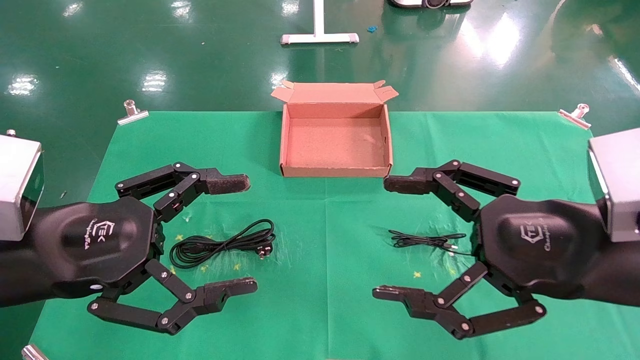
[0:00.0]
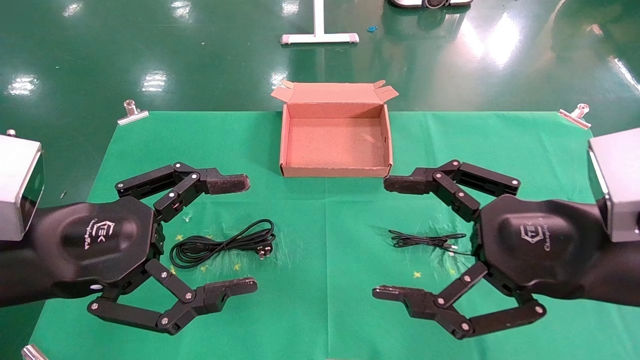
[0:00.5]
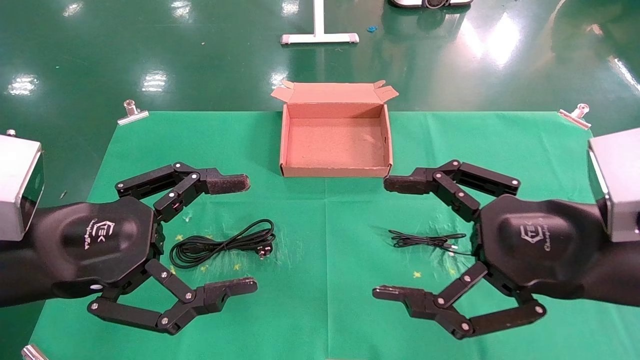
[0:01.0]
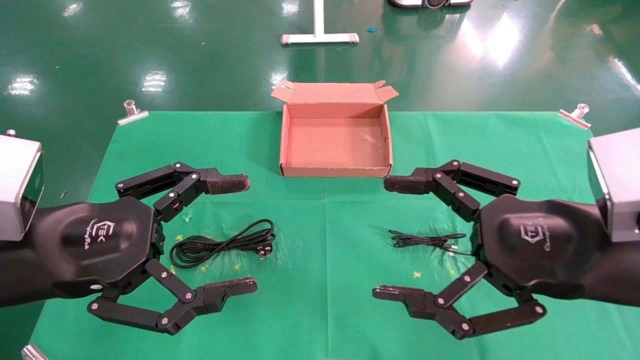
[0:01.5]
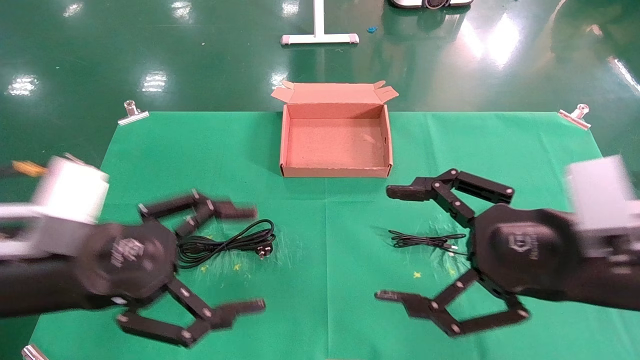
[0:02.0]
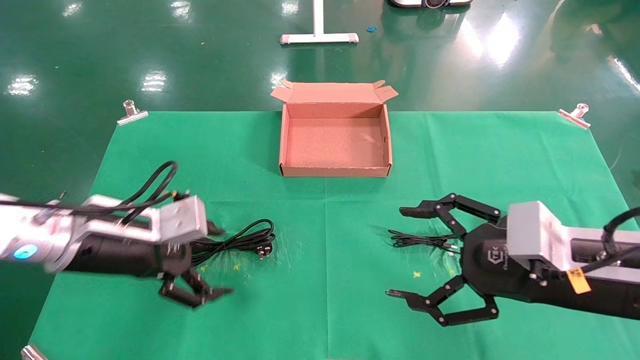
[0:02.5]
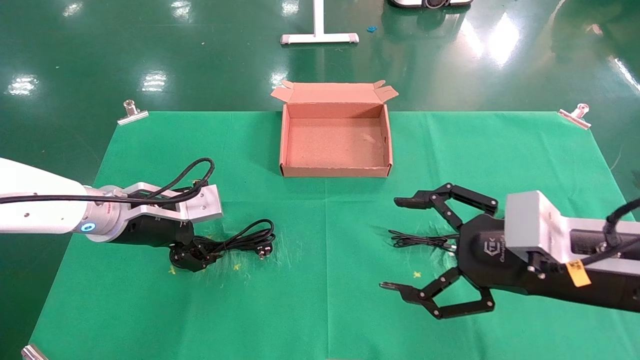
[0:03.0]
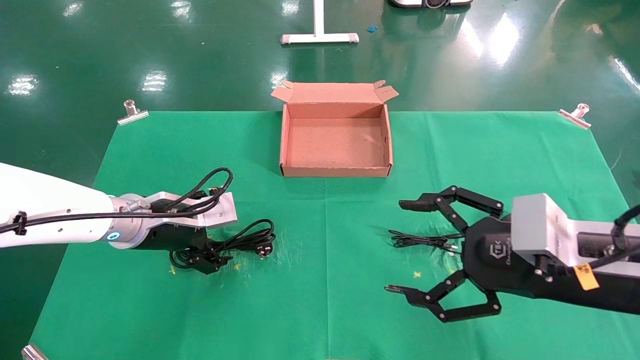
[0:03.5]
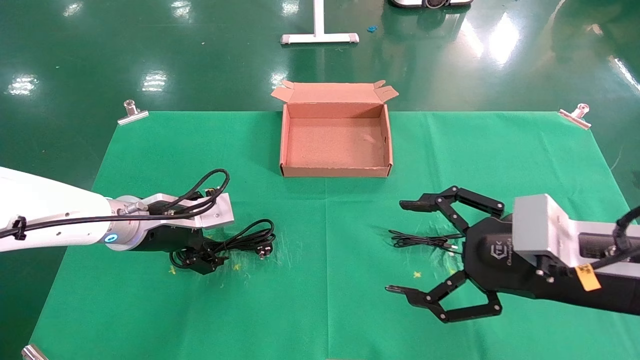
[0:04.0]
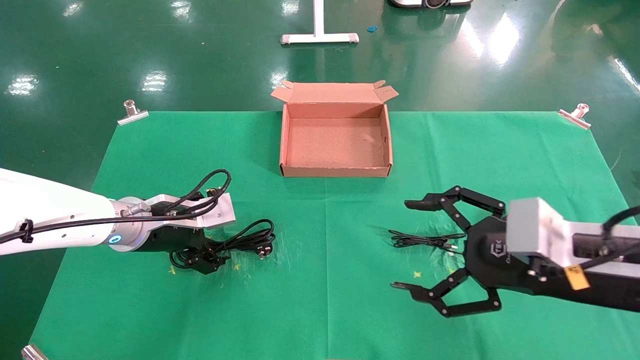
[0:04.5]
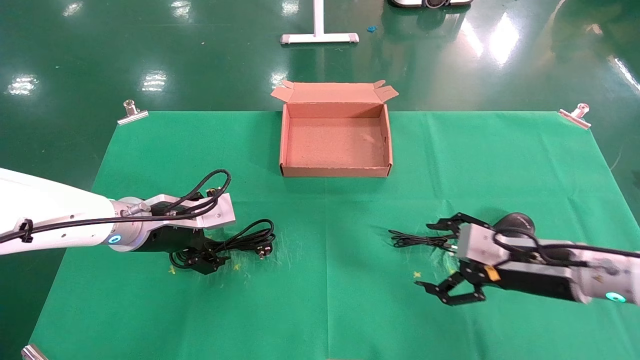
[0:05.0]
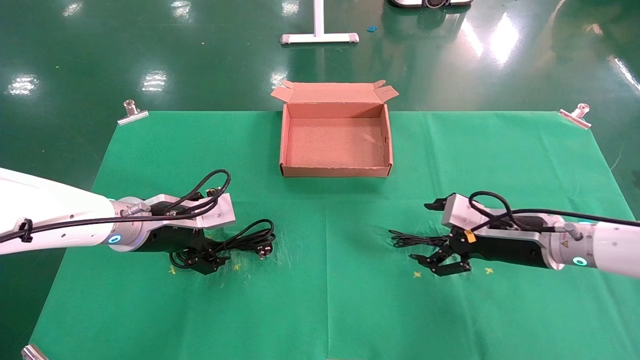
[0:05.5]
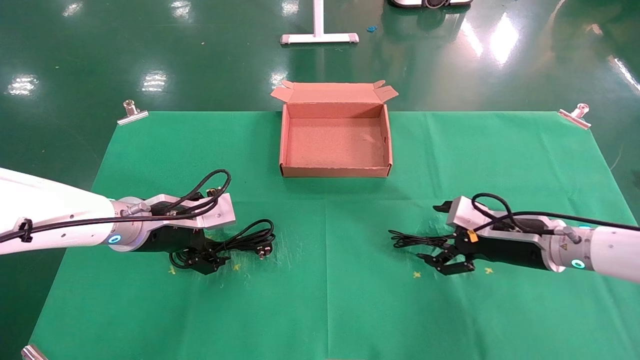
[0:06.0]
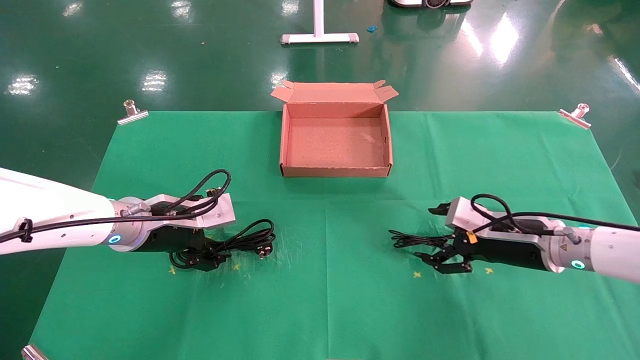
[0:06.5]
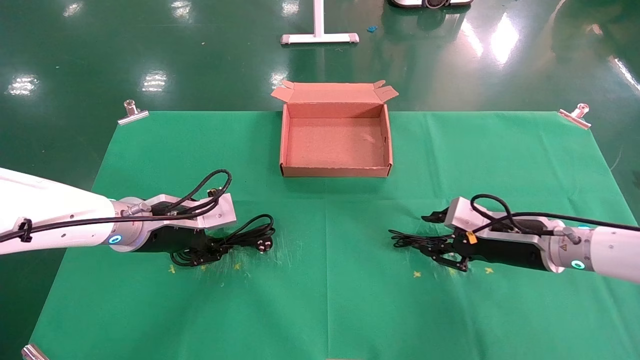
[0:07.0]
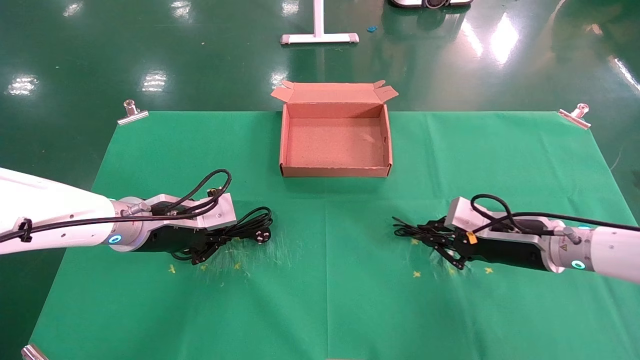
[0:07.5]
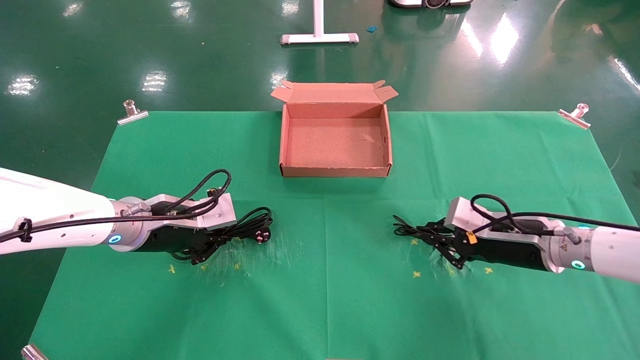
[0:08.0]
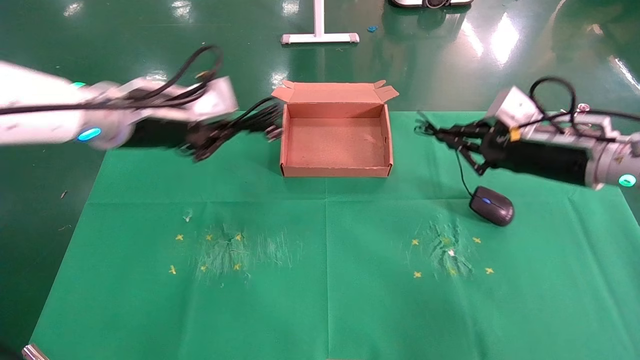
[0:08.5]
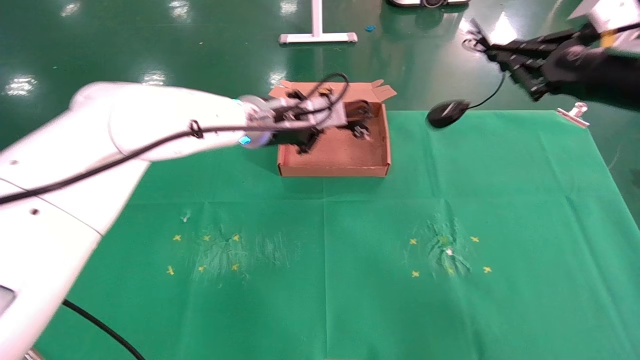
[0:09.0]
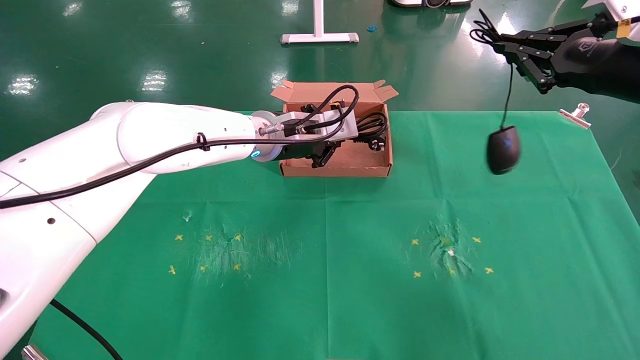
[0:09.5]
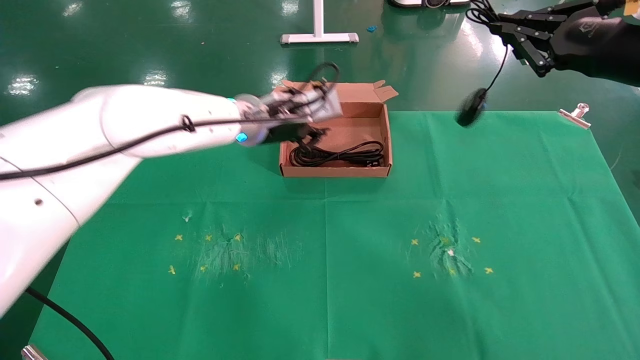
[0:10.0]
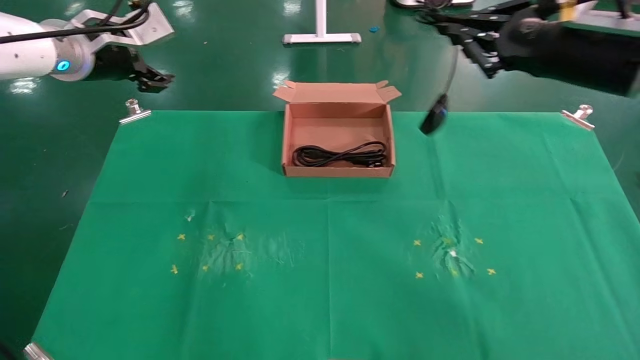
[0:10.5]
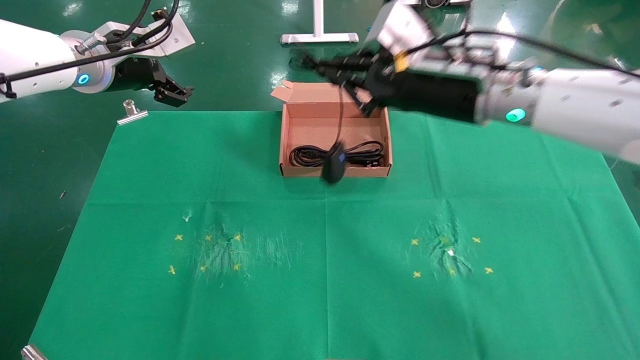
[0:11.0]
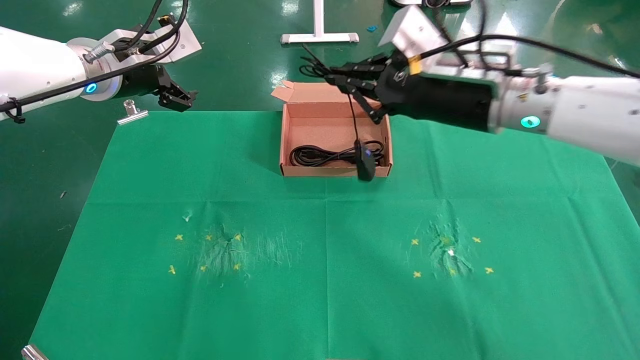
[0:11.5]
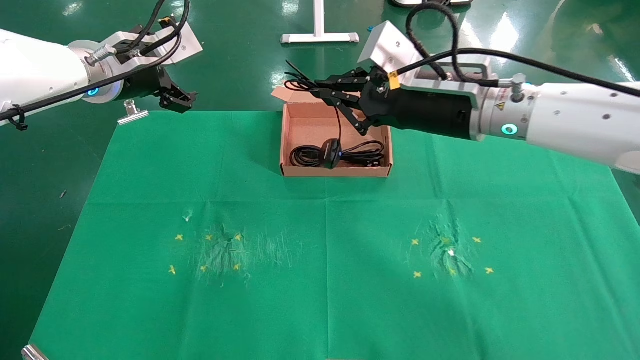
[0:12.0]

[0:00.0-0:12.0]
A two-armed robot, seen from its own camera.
Task of the whole recording: grasp data cable left put into box grasp mouse right put into box.
Step, 0:02.0 to 0:07.5: Simultaneously pick up the mouse and power cord from the accessory packaging area.
0:02.0 to 0:04.0: The left gripper is displaced forward by roughly 15 cm.
0:04.0 to 0:06.0: The right gripper goes about 15 cm forward and downward.
0:06.0 to 0:08.0: The left gripper closes, while the right gripper closes up.
0:08.0 to 0:10.0: The right gripper shifts some 20 cm upward. The left gripper travels to the right, forward and upward by roughly 20 cm.
0:10.0 to 0:12.0: The left gripper moves to the left and upward, approximately 15 cm, and opens its fingers; the right gripper heads to the left, covering some 20 cm.

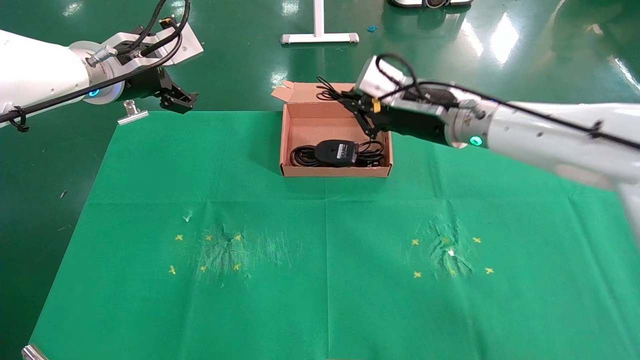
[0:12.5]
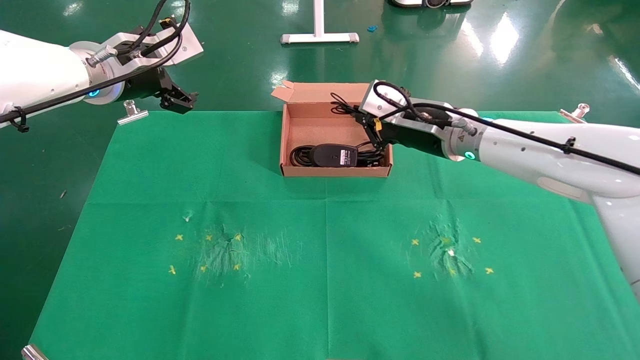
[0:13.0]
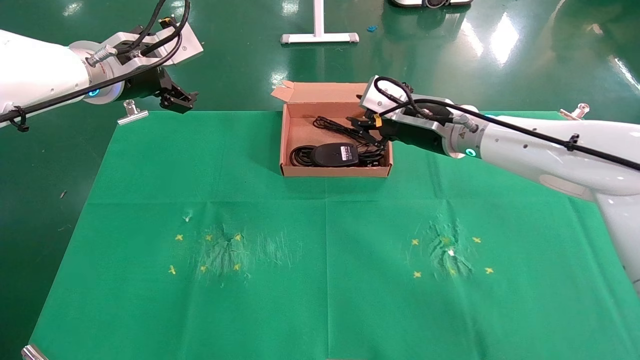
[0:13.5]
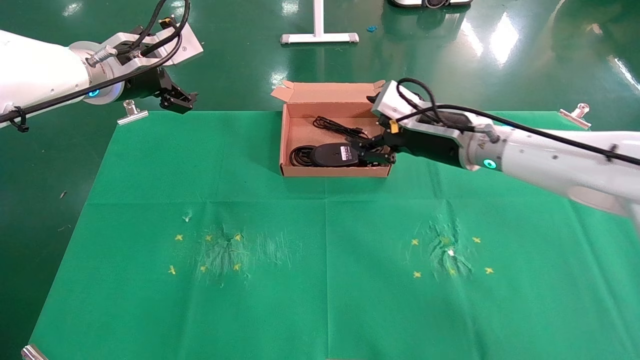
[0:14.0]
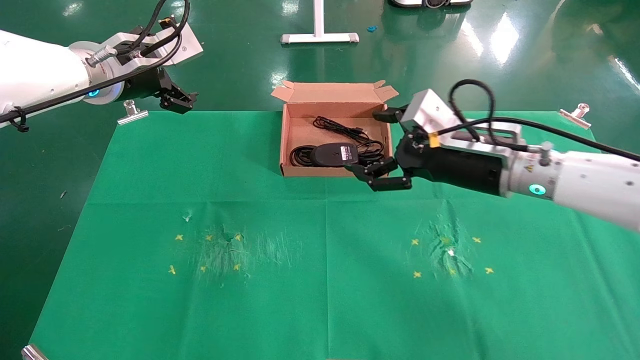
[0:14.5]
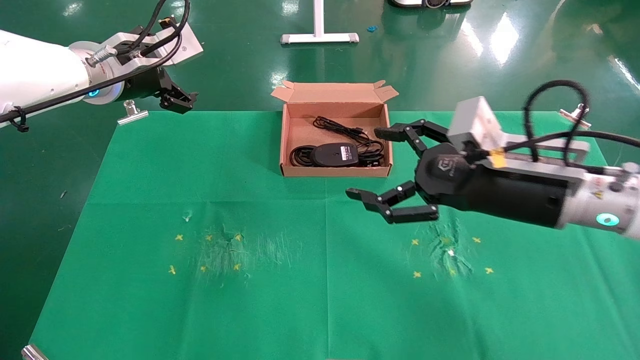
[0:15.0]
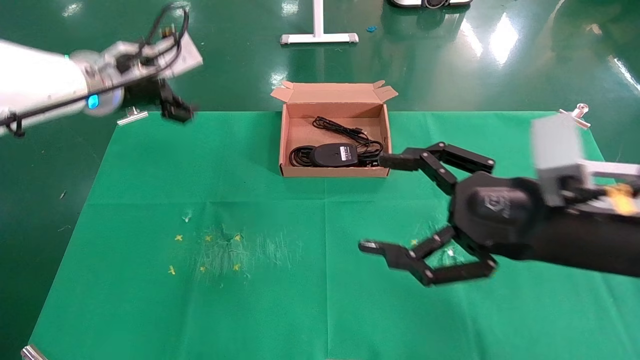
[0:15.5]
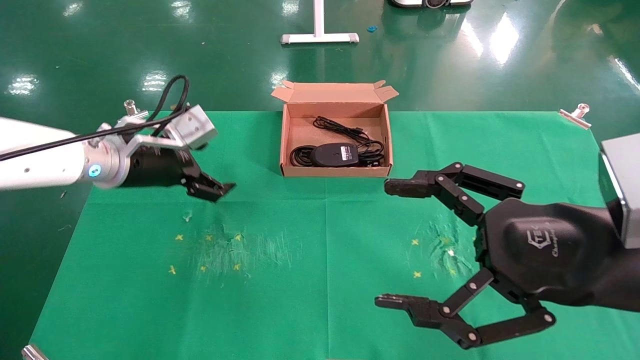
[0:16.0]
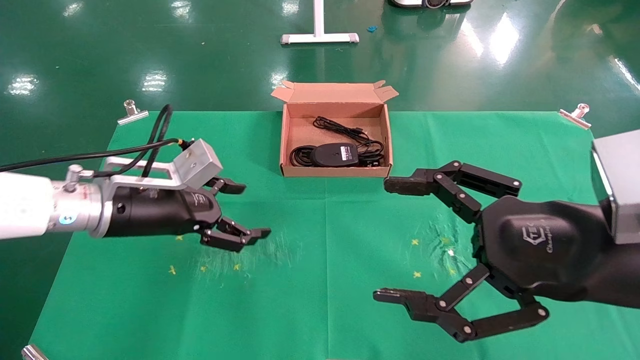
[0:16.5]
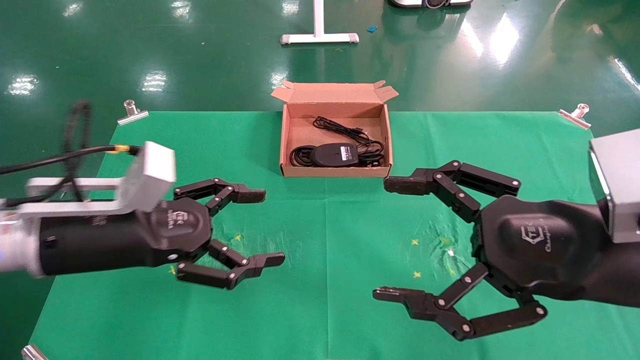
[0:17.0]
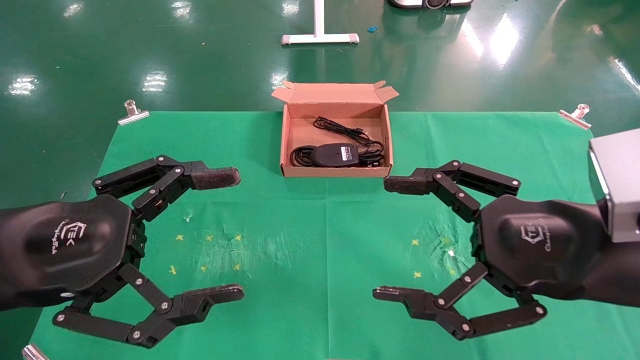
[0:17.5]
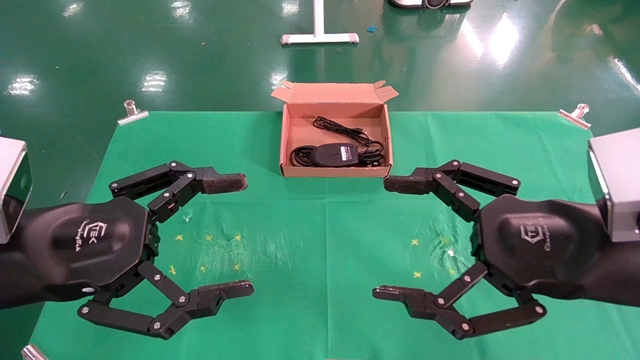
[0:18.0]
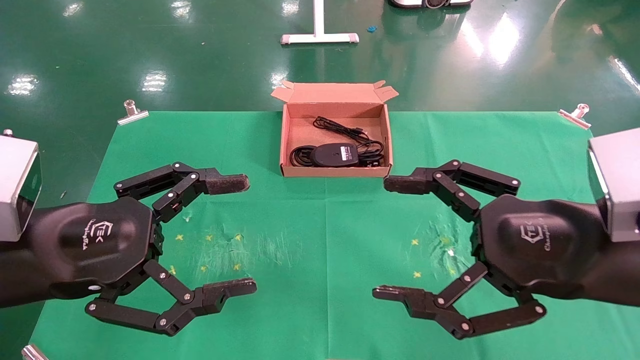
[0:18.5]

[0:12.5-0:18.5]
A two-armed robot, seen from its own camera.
Task of the whole recording: grasp data cable left put into box grasp mouse right put into box.
0:12.5 to 0:14.5: The right gripper moves backward, some 5 cm, and opens.
0:14.5 to 0:16.5: The left gripper shifts approximately 15 cm downward and backward. Meanwhile the right gripper shifts some 20 cm backward.
0:16.5 to 0:18.5: The left gripper goes roughly 15 cm backward.
